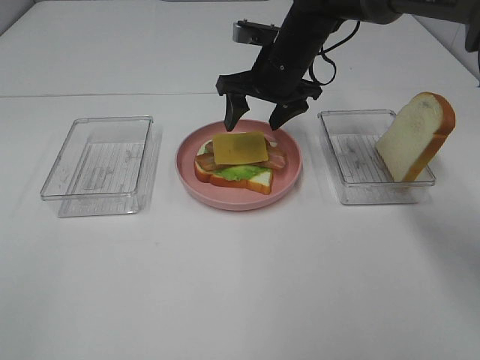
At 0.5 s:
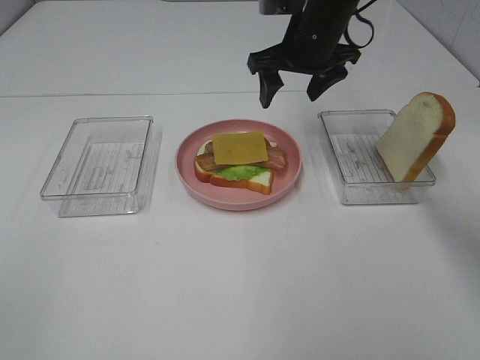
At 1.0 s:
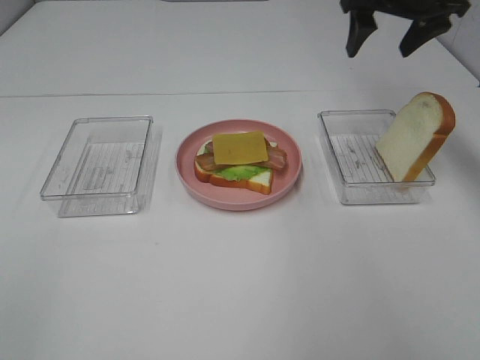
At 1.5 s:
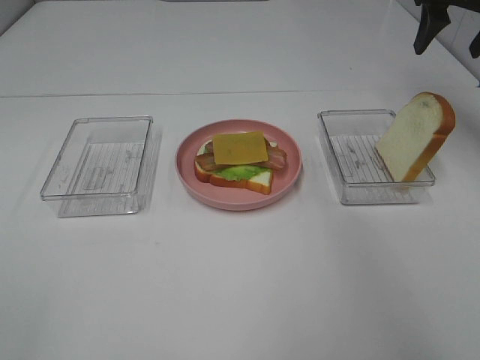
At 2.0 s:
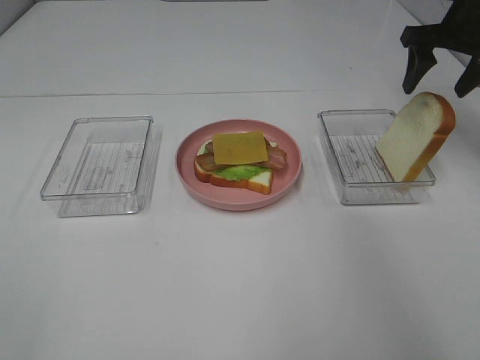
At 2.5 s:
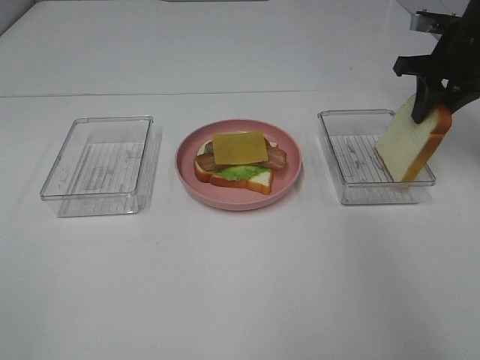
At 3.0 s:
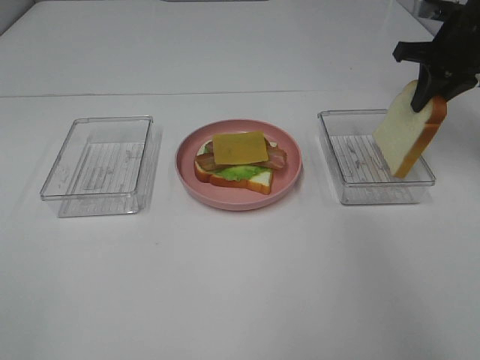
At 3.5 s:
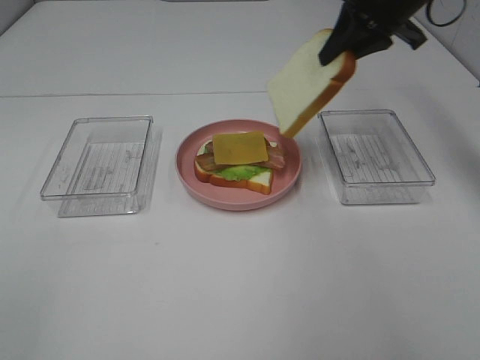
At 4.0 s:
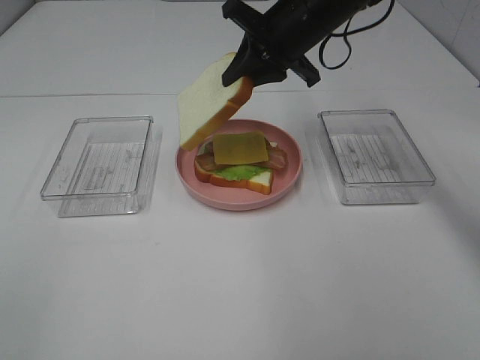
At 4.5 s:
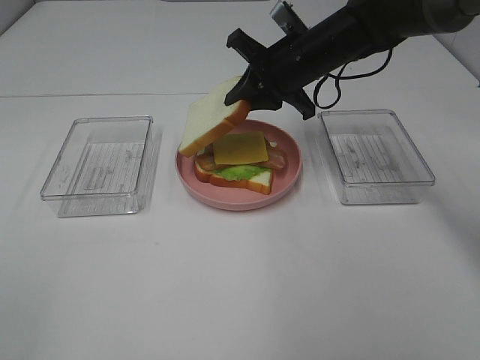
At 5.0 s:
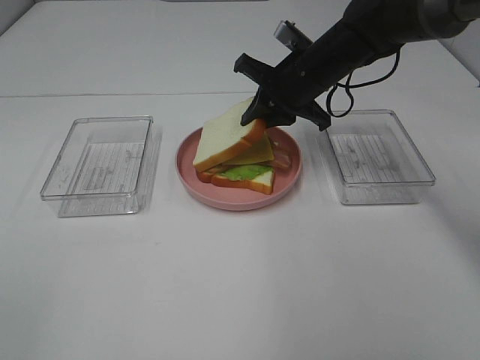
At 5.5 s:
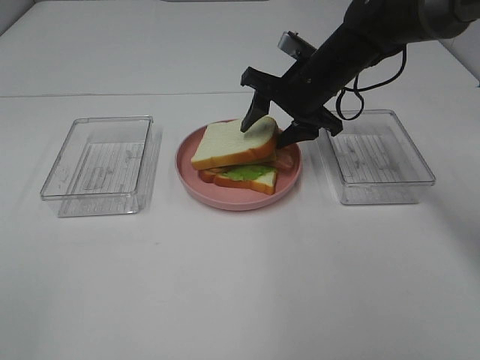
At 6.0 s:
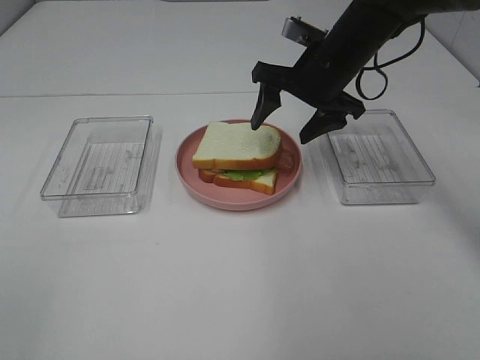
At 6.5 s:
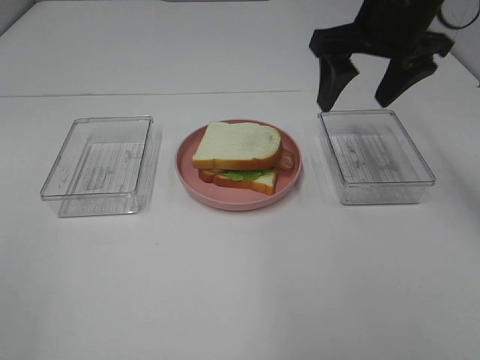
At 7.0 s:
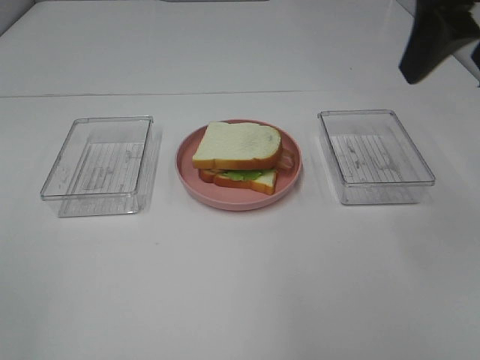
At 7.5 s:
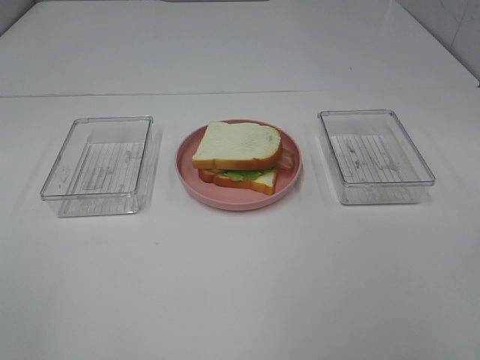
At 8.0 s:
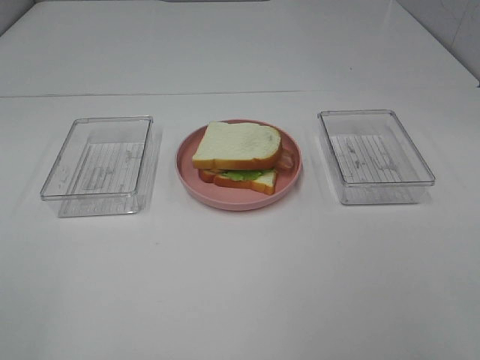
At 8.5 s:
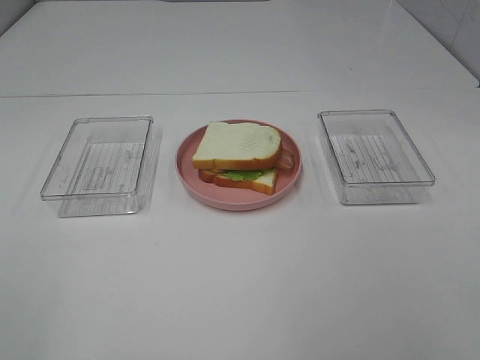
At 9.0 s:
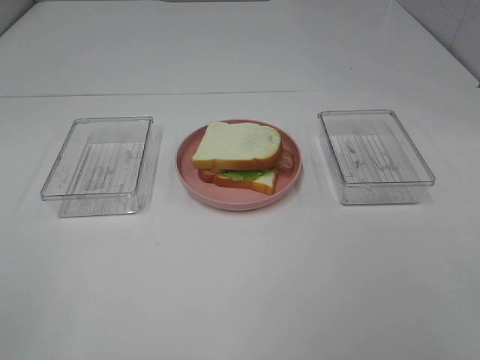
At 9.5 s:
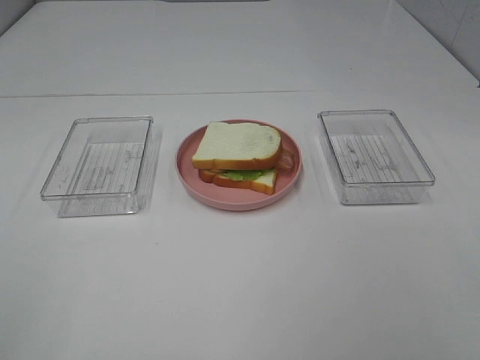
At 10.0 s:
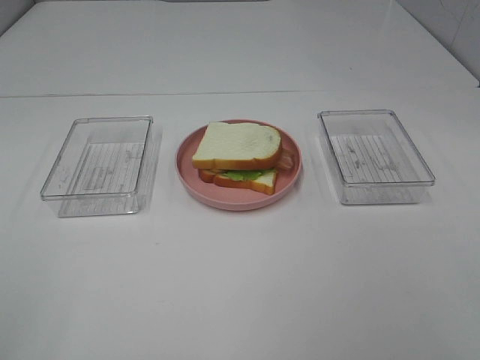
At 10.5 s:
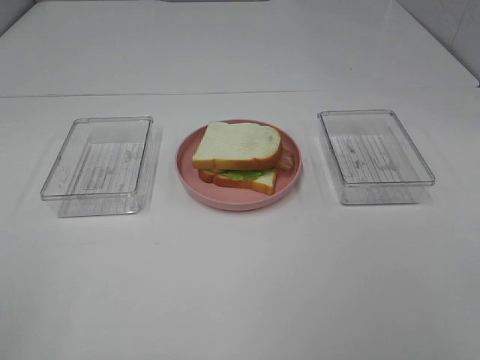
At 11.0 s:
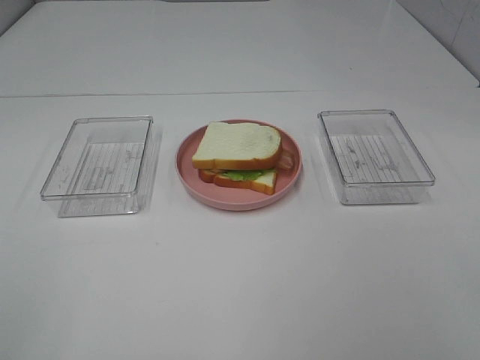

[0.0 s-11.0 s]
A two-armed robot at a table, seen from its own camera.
Task of the whole recording: Make sandwiches.
Step, 1.0 to 3.0 s: Right hand:grab the bread slice.
Step, 3.5 to 6.0 s: Right hand:place the bread slice on the cheese slice.
0.0 to 2.0 s: The right gripper goes approximately 25 cm to the right.
2.0 to 3.5 s: The right gripper goes some 10 cm to the left, and closes its fingers.
3.5 to 5.5 s: The right gripper travels downward and to the left by roughly 15 cm, and opens up.
5.5 to 7.5 s: The right gripper moves backward and to the right, about 40 cm.
9.0 to 11.0 s: The two grippers keep their place.
